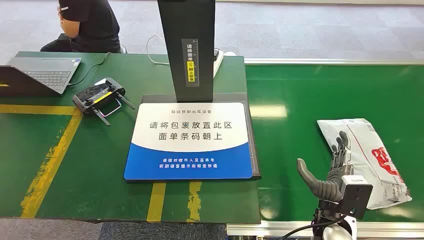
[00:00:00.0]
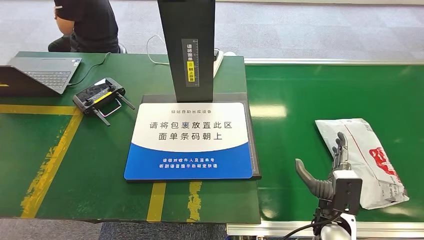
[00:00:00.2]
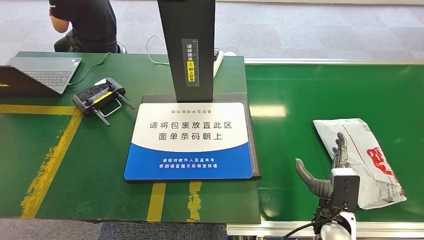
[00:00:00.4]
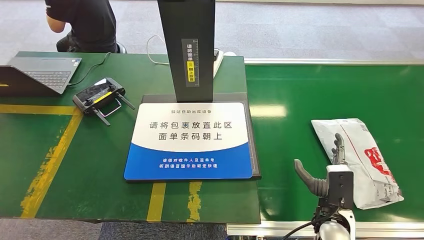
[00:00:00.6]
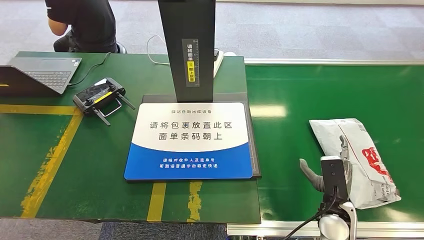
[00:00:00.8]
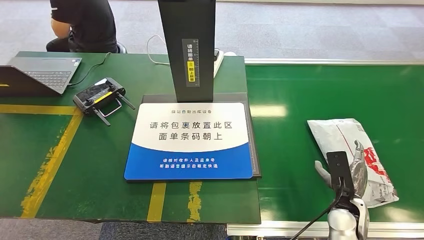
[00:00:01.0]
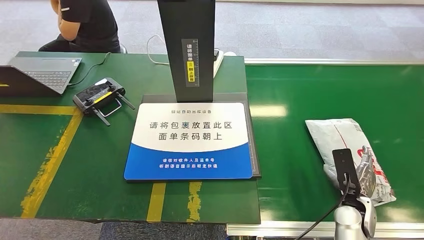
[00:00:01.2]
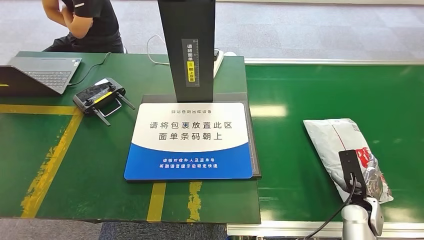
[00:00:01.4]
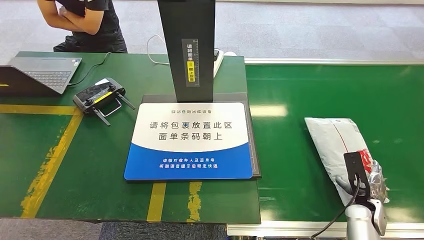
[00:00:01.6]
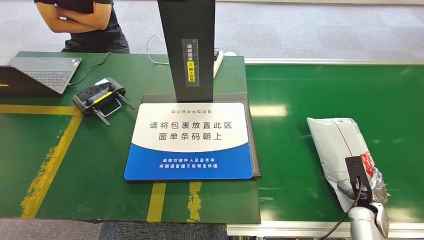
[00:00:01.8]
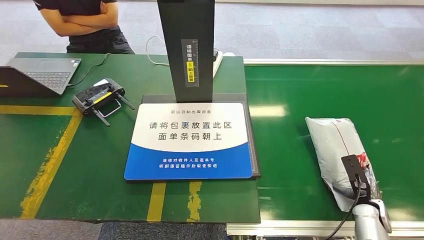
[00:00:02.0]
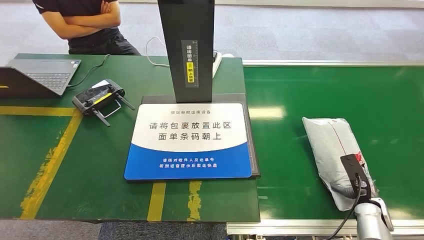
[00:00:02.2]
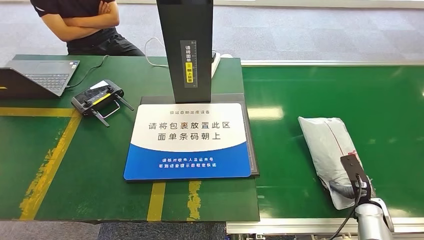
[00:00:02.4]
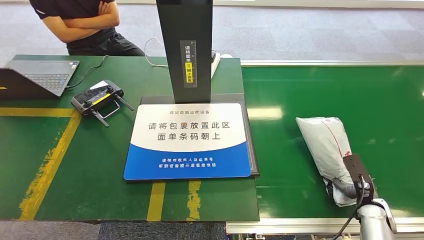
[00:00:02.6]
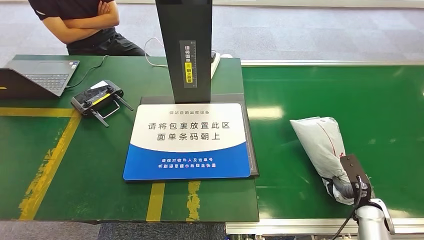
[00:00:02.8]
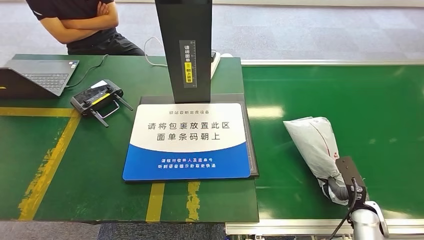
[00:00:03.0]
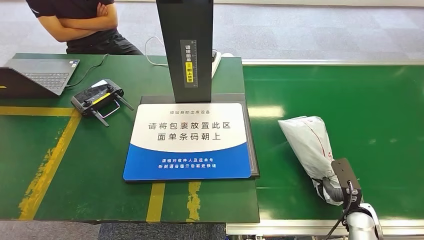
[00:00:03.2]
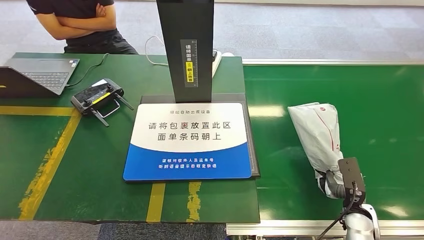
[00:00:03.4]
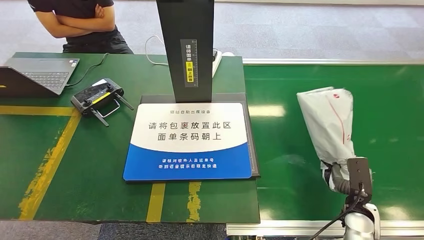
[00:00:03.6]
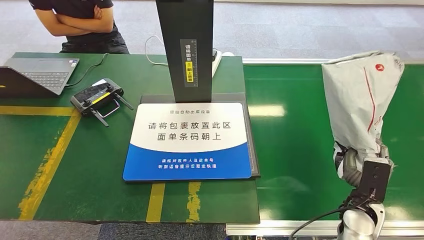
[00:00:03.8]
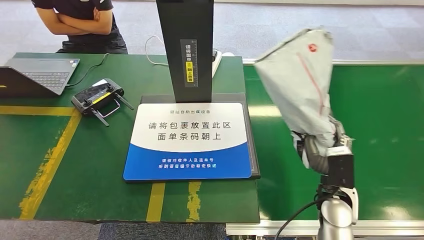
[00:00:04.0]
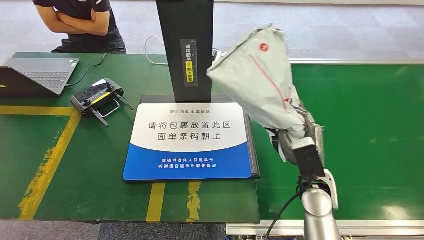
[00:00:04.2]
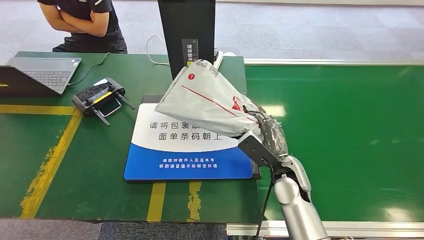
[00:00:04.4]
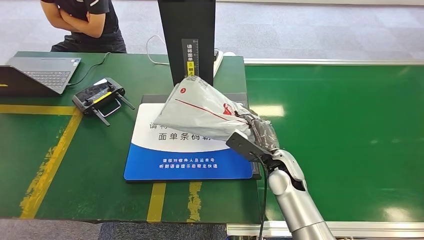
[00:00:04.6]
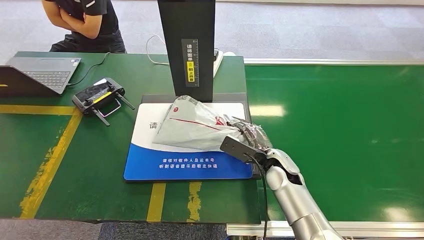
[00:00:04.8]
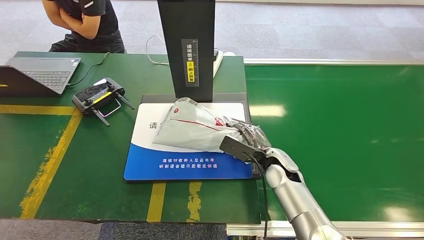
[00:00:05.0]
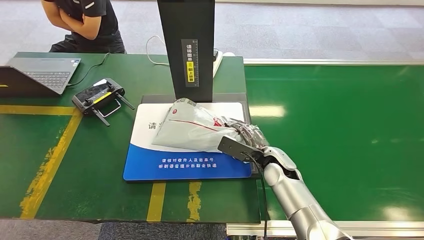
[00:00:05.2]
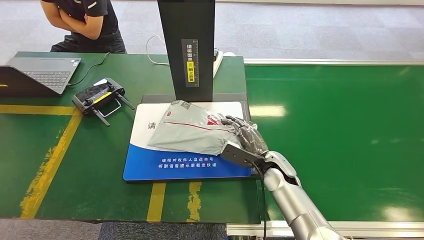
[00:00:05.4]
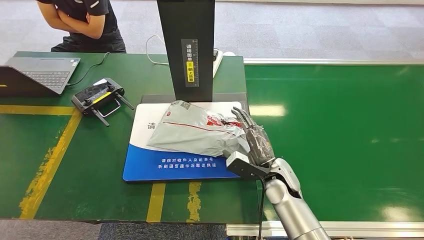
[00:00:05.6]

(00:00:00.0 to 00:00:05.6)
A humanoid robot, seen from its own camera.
Step, 00:00:00.0 - 00:00:03.8: Pick up the package from the conveyor belt.
Step, 00:00:04.0 - 00:00:05.6: Place the package onto the inbound machine.
00:00:04.2 - 00:00:05.6: The right hand goes roughly 5 cm to the left.
